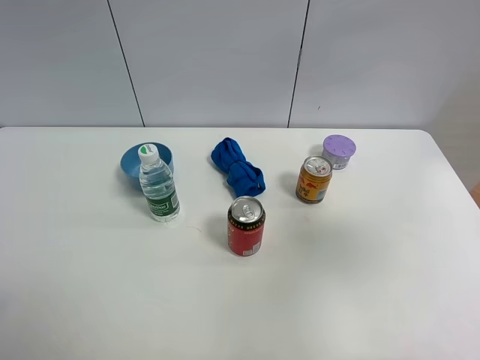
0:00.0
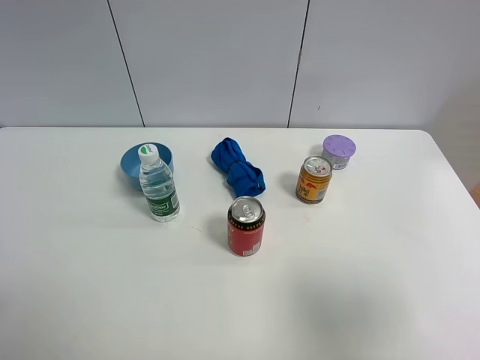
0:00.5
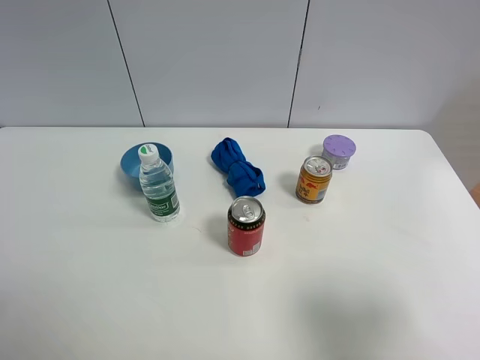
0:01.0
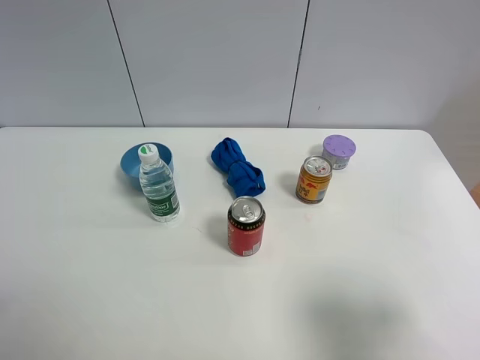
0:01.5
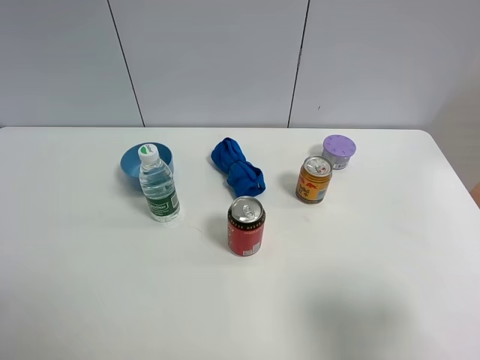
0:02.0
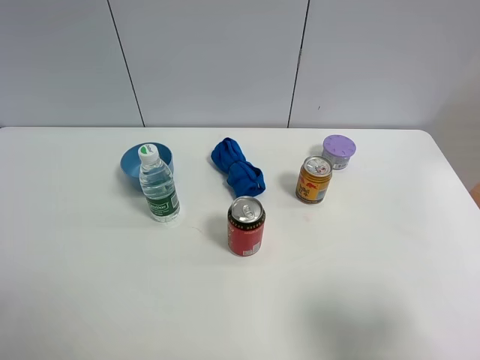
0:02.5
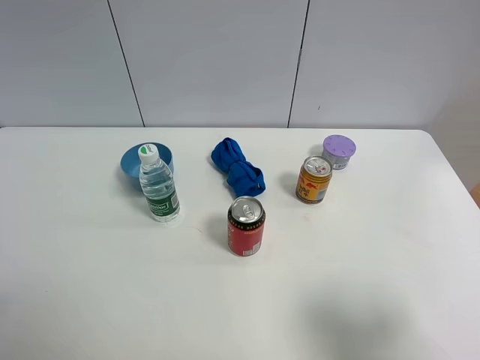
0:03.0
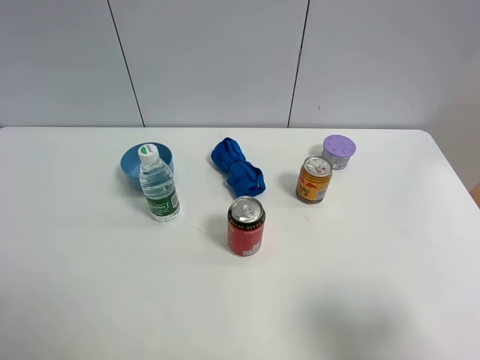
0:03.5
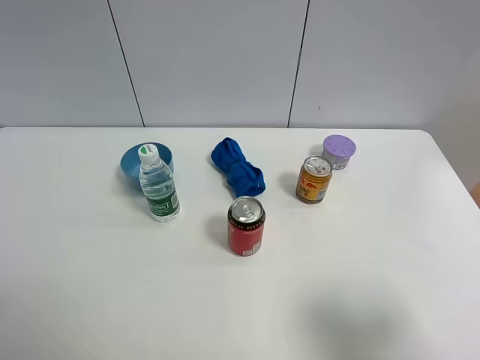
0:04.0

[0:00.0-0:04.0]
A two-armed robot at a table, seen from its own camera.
Task of the whole recording: the gripper move the object.
0:00.0 to 0:02.0: The right gripper moves downward and backward, roughly 15 cm.

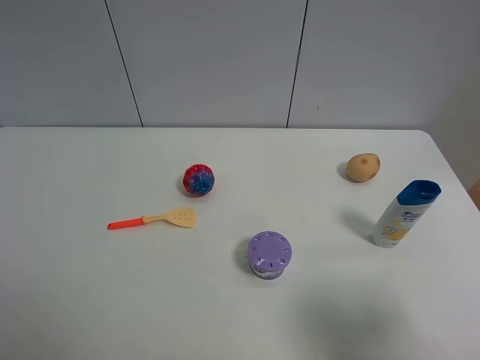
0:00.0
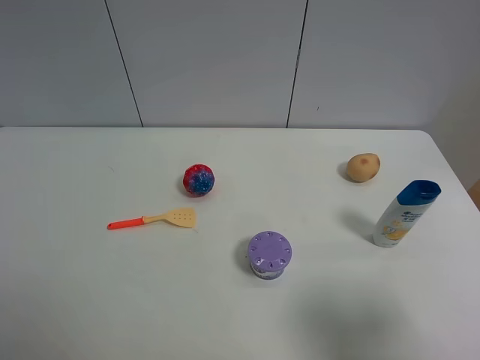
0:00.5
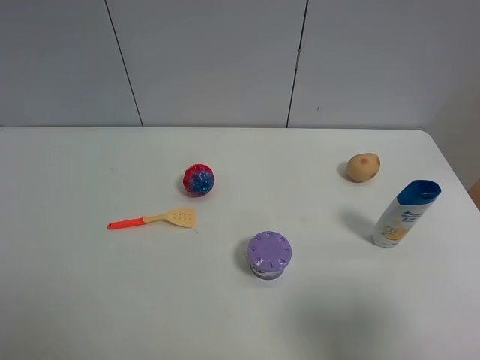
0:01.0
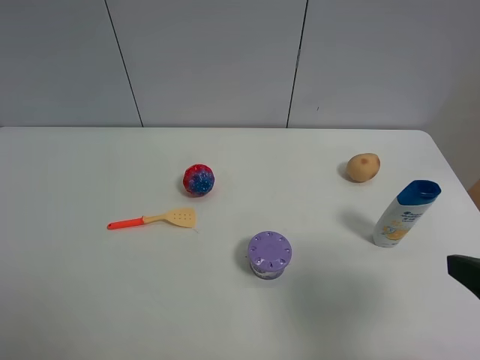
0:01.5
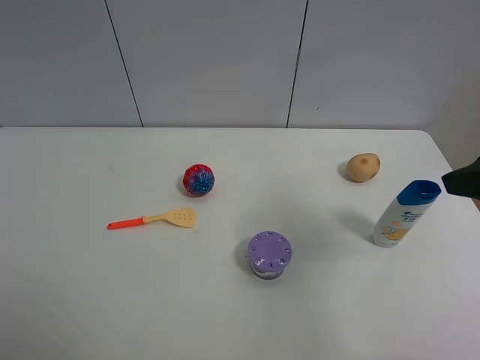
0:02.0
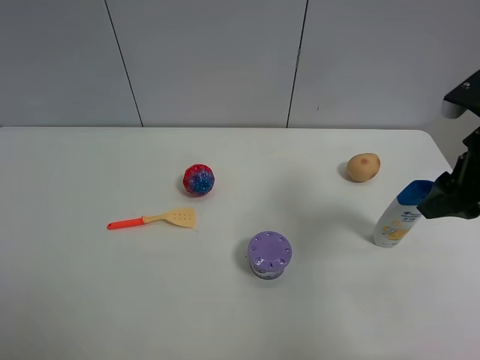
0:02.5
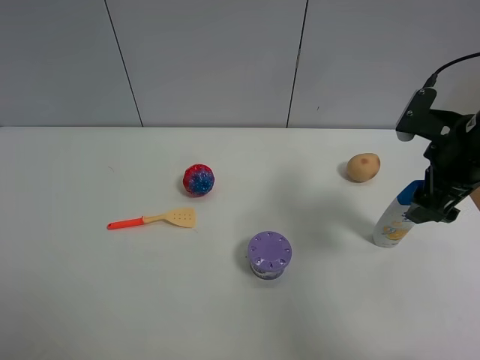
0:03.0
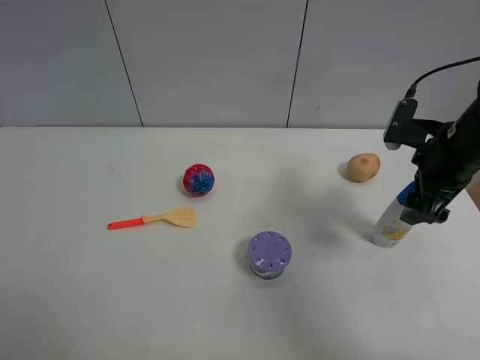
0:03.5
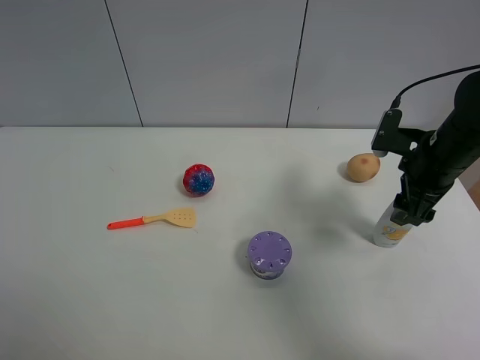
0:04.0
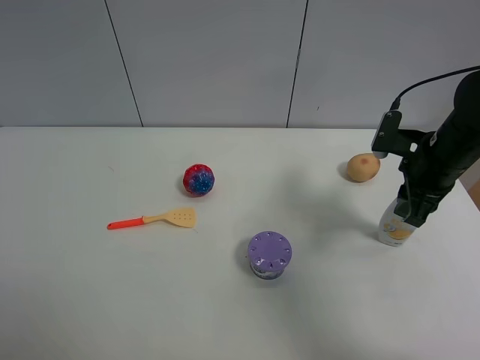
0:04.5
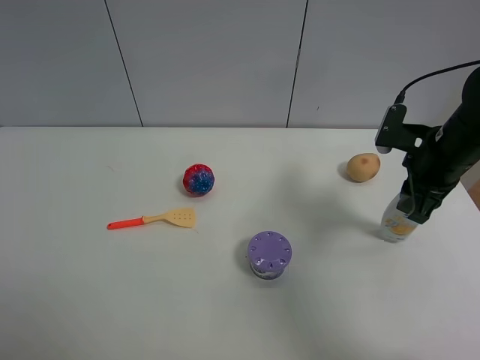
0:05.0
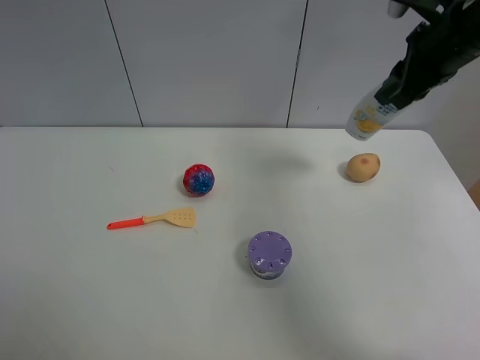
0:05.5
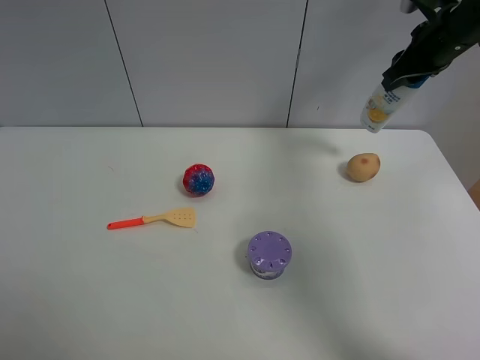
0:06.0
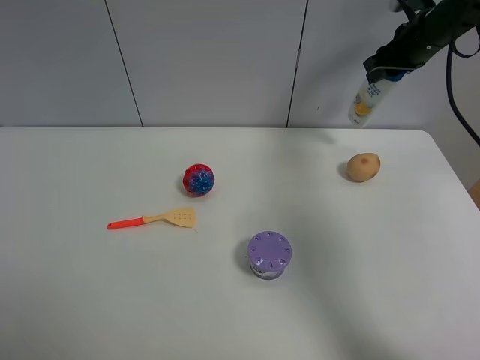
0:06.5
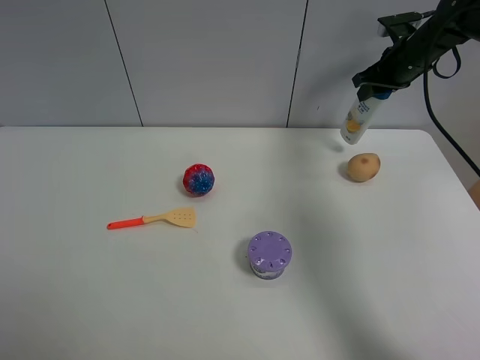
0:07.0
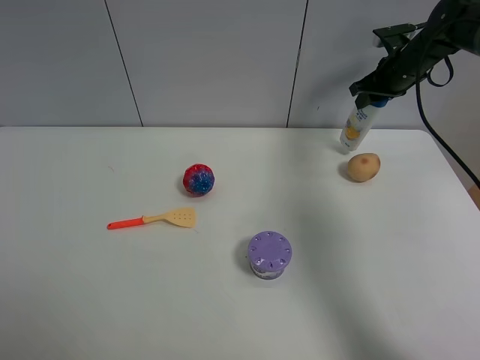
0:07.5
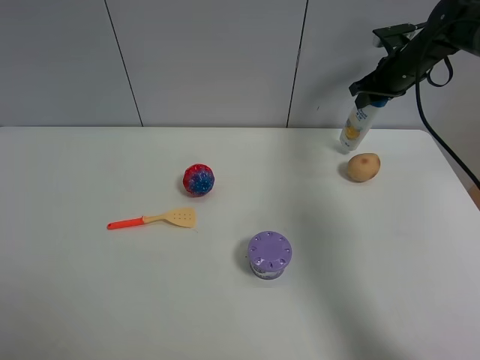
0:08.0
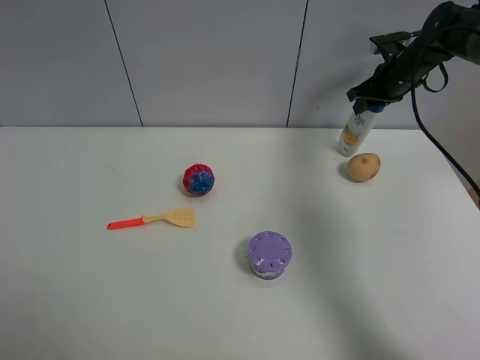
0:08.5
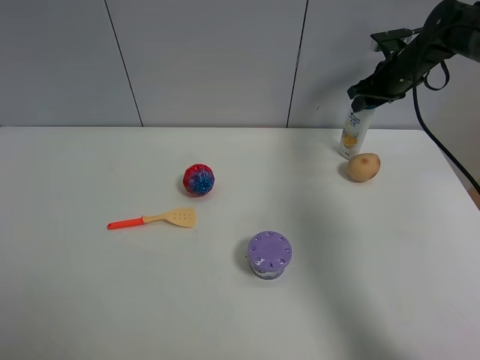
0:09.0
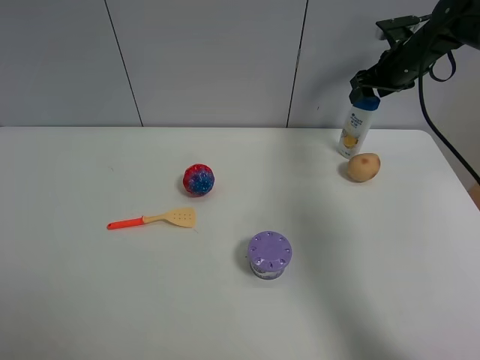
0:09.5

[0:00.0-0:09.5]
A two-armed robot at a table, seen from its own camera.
Task of the whole recording: the gripper move the object.
Step, 0:00.0 to 0:04.5: Grasp the shampoo with the right gripper.
Step, 0:05.0 to 0:09.0: Place the shampoo on the table with the right gripper.
0:00.0 to 0:02.0: The right gripper shifts approximately 15 cm forward and upward.
0:02.0 to 0:04.0: The right gripper travels downward and forward by about 20 cm.
0:04.0 to 0:05.5: The right gripper shifts about 15 cm upward, and closes its fingers.
0:05.5 to 0:07.5: The right gripper shifts about 20 cm forward and downward.
0:07.5 to 0:09.5: The right gripper opens its fingers.

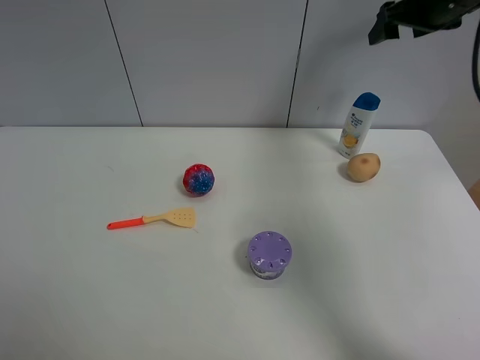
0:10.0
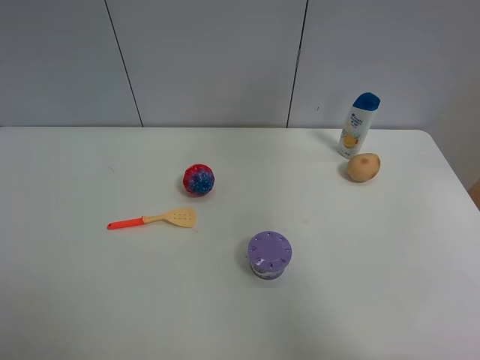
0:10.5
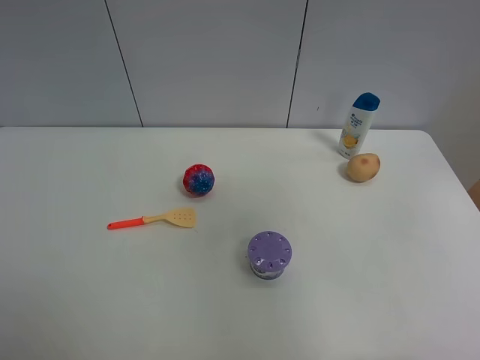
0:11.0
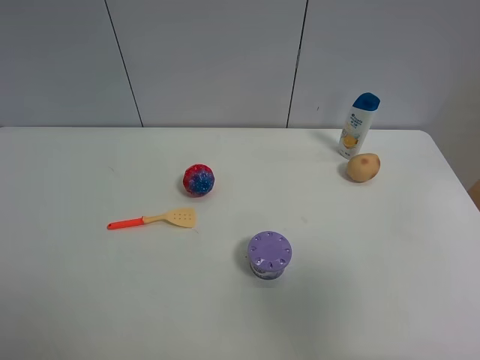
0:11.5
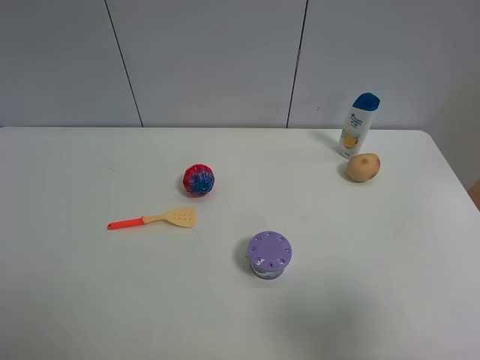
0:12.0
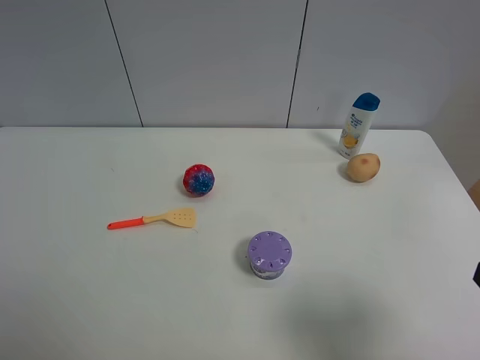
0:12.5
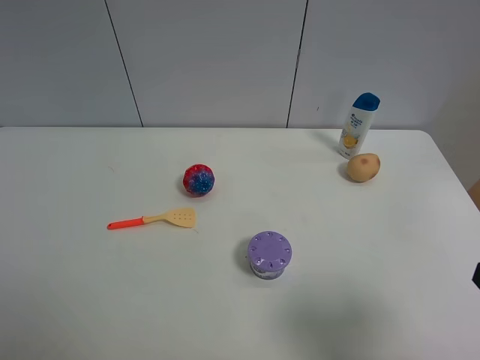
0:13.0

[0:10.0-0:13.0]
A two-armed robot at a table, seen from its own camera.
Task of the whole recording: the gripper move the object.
0:10.0 to 0:11.5: The right gripper moves backward, some 40 cm.
0:11.5 to 0:13.0: The right gripper shifts roughly 5 cm downward.
